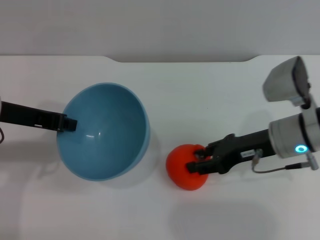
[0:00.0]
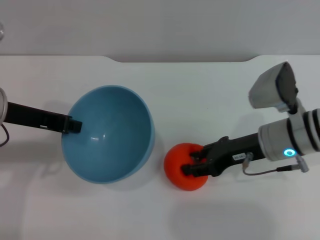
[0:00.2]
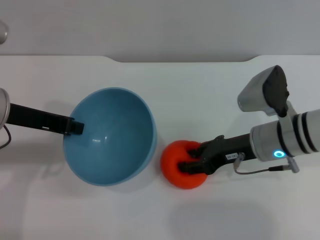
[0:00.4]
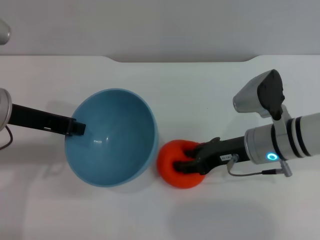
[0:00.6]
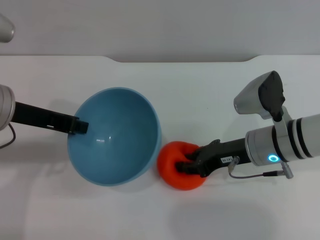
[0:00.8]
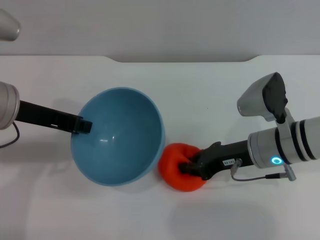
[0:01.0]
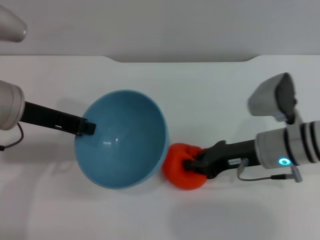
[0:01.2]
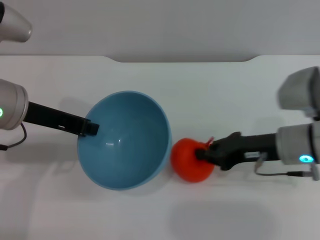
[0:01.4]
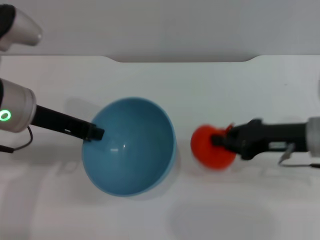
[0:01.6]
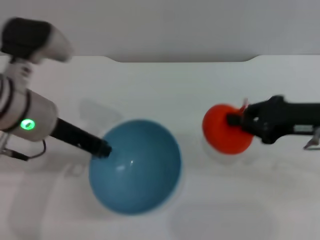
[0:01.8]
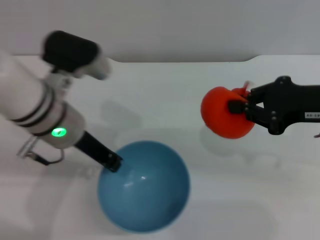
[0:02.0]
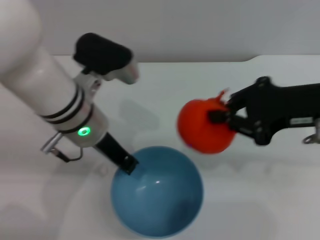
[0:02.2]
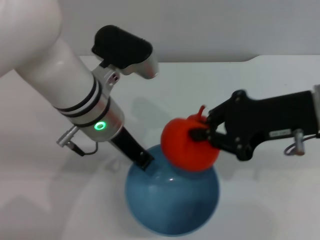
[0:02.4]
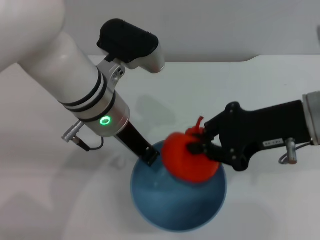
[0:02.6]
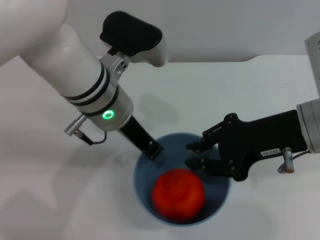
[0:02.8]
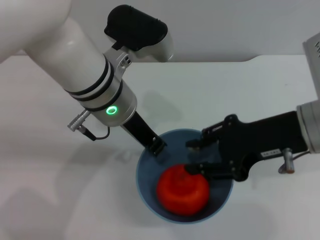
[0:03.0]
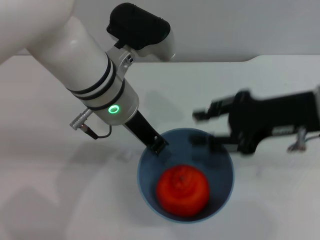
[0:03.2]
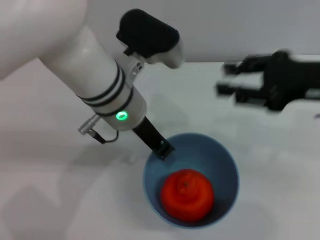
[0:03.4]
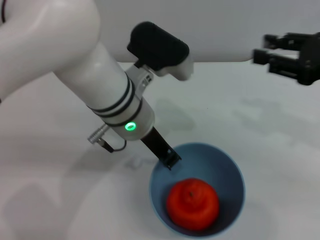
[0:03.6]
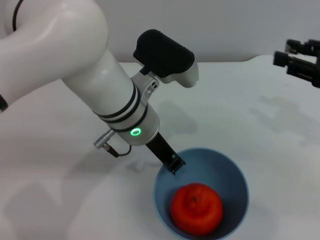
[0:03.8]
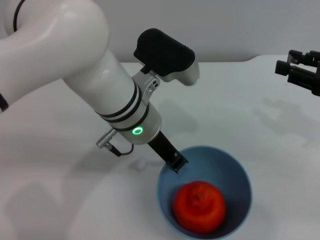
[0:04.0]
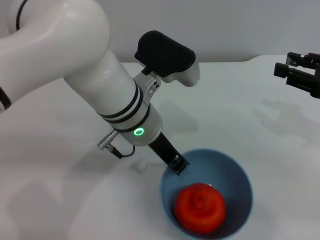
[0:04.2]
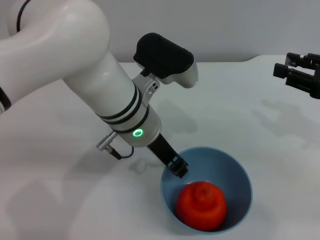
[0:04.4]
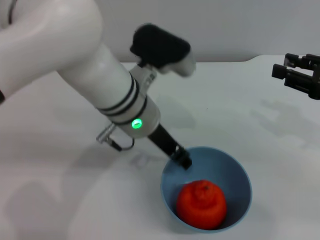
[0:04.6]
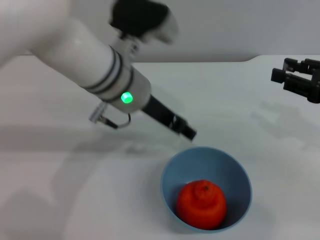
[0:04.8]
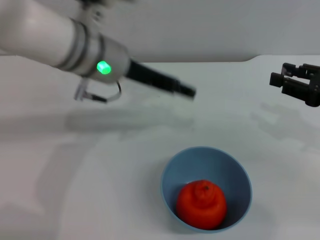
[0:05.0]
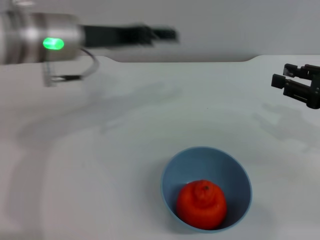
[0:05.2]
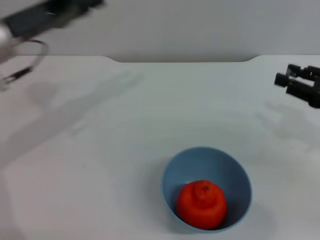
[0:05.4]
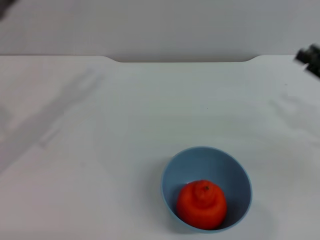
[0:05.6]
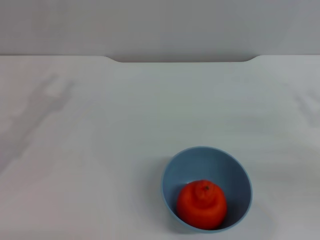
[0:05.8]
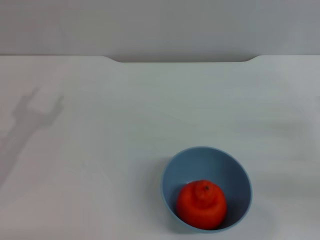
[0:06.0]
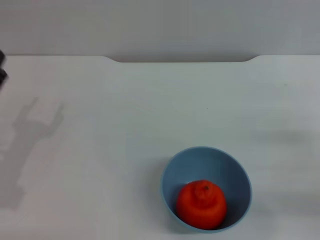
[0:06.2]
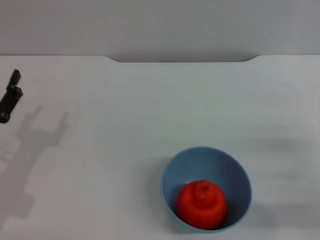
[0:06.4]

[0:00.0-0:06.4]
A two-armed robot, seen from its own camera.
Task of the whole recording: put the orange into the blue bowl and pour it out repeatedly.
Step, 0:01.8 to 0:03.2: Place the orange into the bowl.
Step, 0:03.4 to 0:04.8: Place the bowl on the table.
0:00.0 to 0:01.6: The right gripper changes place by about 5 cm, and closes.
0:01.6 to 0:03.2: The left gripper shifts roughly 15 cm to the right. The right gripper moves upward, about 10 cm, and opens.
0:03.2 to 0:04.8: The left gripper opens its fingers, while the right gripper travels to the right by some 10 cm.
0:04.8 to 0:06.4: The left gripper shifts roughly 30 cm to the left, downward and backward. The right gripper goes roughly 15 cm downward and backward.
